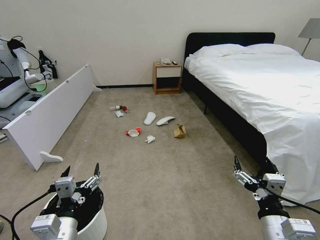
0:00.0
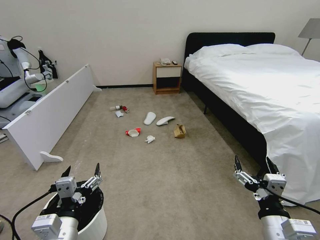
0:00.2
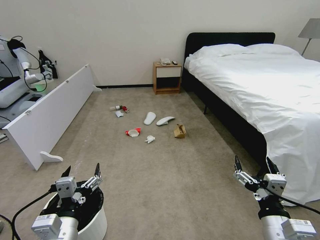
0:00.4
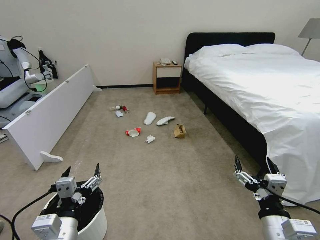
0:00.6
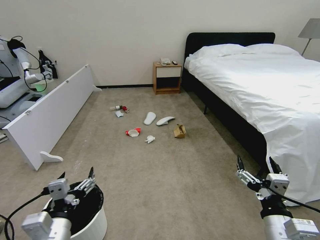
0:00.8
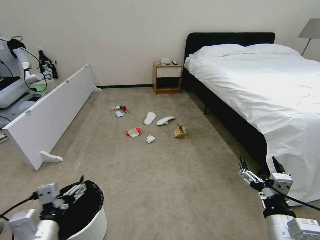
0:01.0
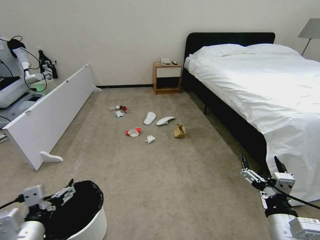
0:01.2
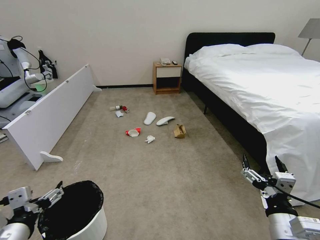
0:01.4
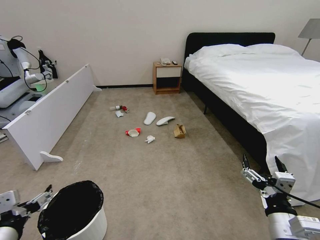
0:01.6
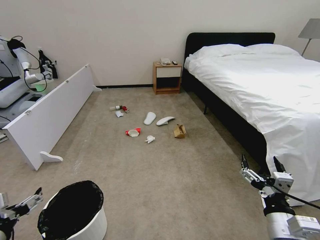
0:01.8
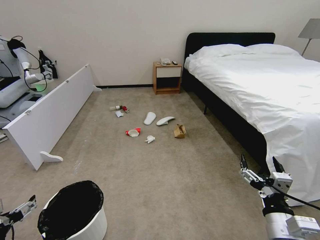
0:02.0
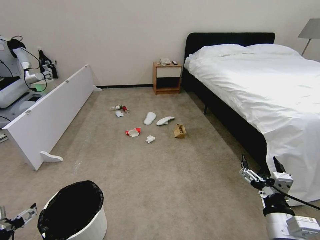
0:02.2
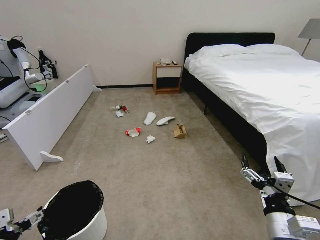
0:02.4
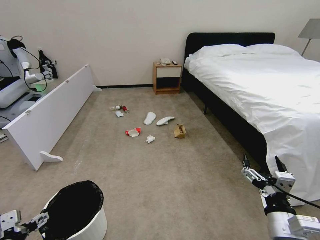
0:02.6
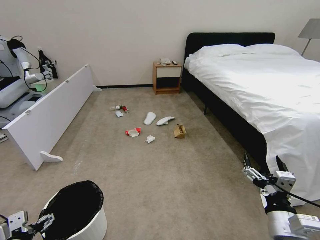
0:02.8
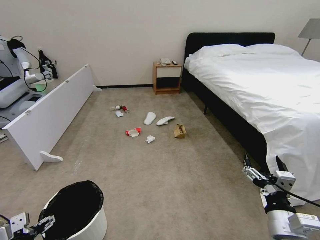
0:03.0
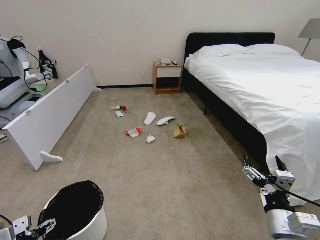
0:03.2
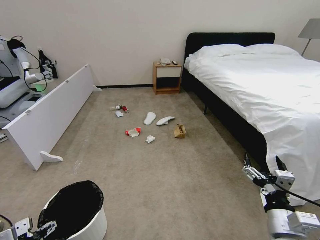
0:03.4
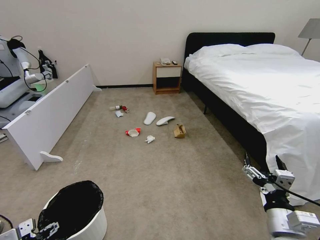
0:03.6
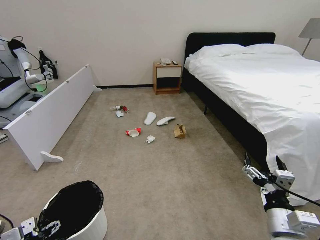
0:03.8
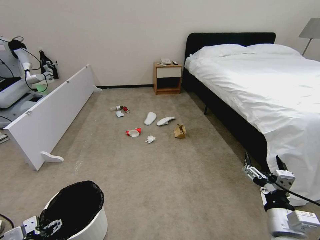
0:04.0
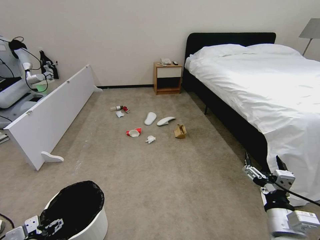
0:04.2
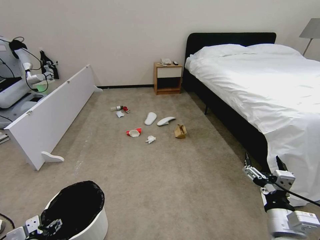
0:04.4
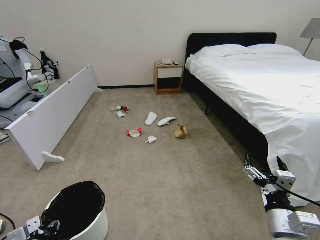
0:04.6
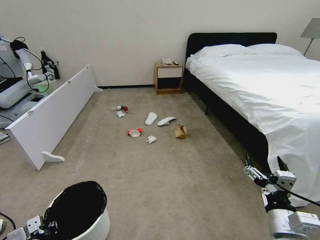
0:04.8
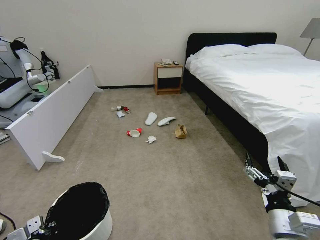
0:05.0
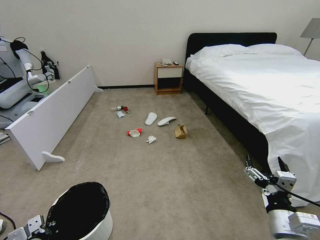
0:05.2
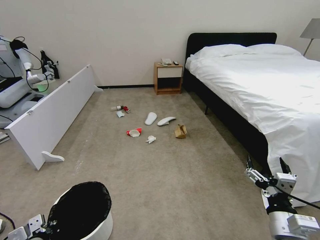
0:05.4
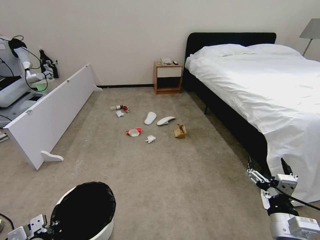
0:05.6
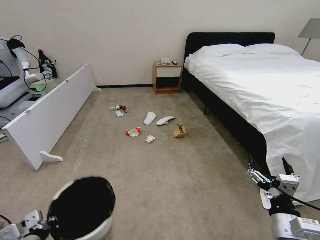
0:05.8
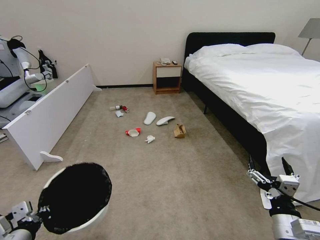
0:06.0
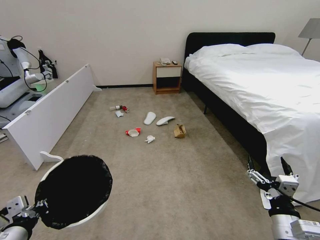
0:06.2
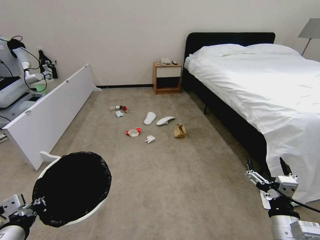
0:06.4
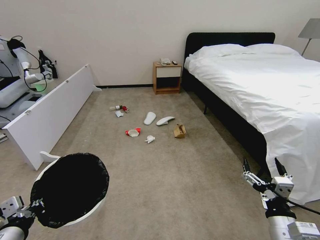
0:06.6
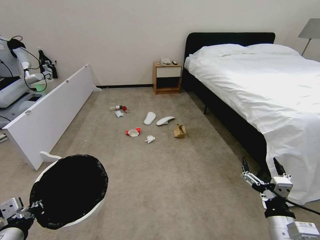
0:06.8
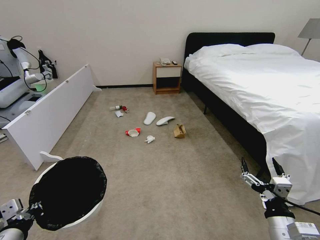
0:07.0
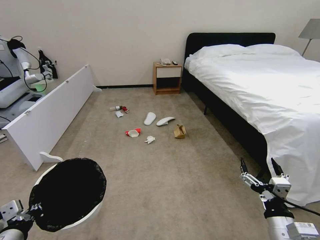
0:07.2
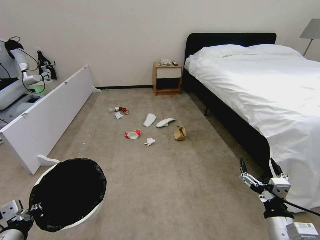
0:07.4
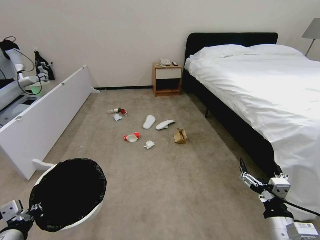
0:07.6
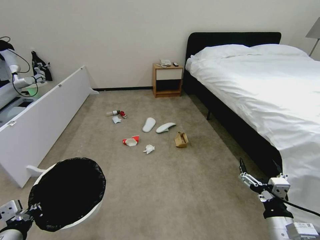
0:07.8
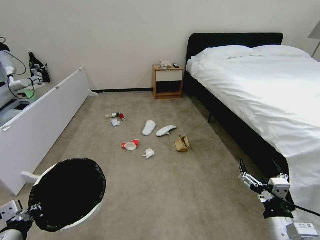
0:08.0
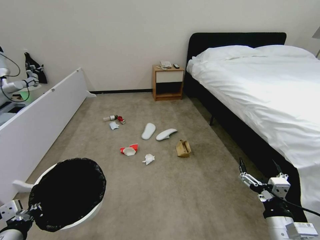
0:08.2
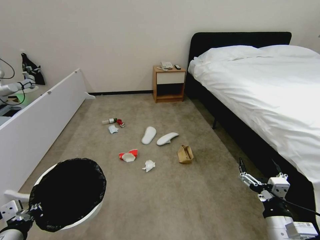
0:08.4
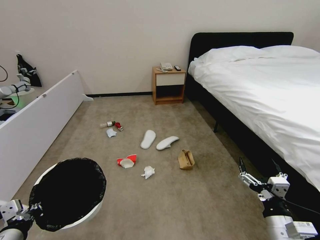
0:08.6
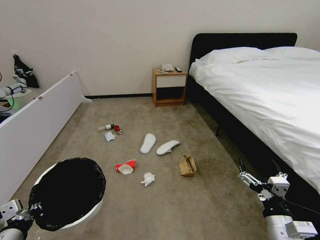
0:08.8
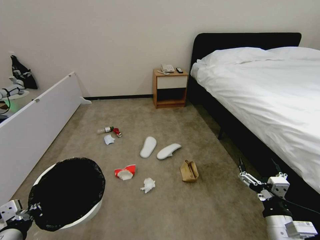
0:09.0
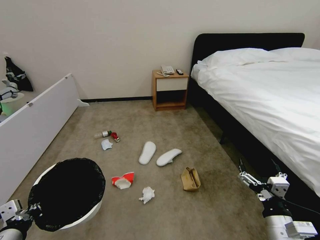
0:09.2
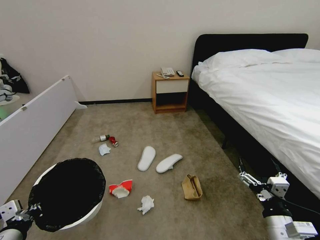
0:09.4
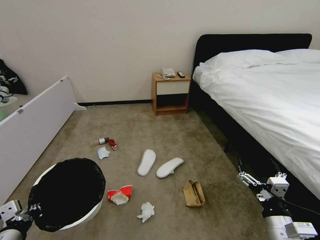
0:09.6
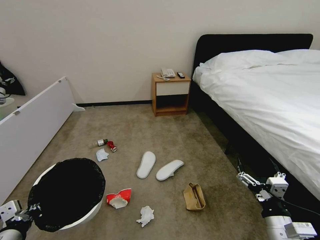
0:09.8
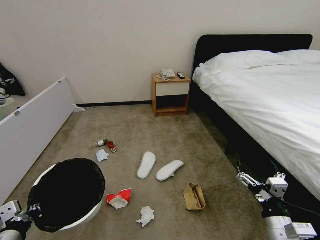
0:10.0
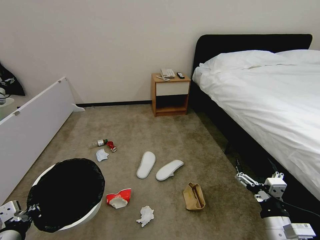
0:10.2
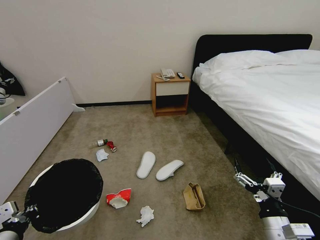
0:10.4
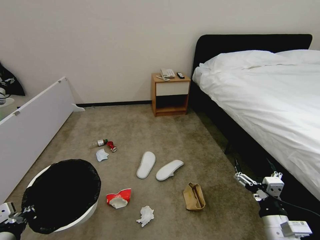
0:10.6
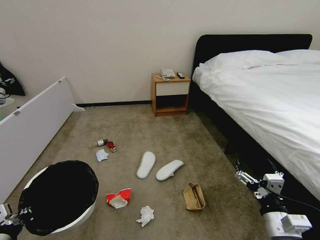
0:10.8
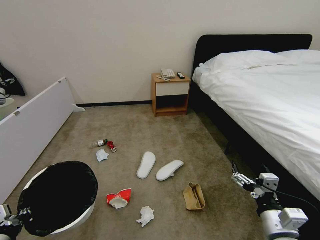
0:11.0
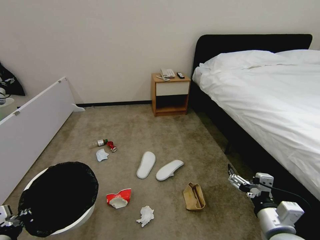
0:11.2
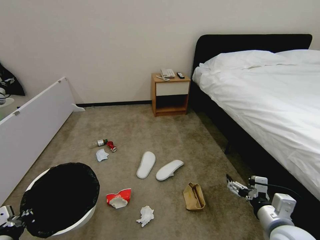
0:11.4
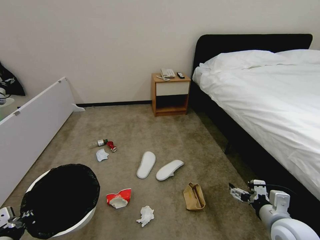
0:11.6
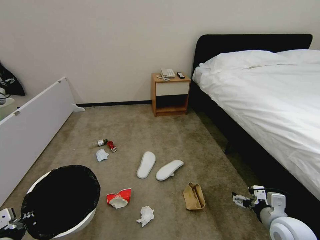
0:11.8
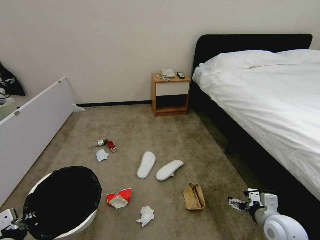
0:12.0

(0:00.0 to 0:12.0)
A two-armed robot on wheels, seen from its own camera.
Task of the whole recording: Pick up the trash bin and place the garbage on the floor into it.
0:01.6 - 0:03.0: The left gripper goes about 10 cm downward.
0:03.0 - 0:04.4: The left gripper shifts about 5 cm downward.
0:04.4 - 0:06.0: The left gripper is displaced upward by some 10 cm, and closes its fingers.
0:06.0 - 0:07.6: There are only small adjustments of the grippers.
0:10.4 - 0:12.0: The right gripper goes approximately 10 cm forward.

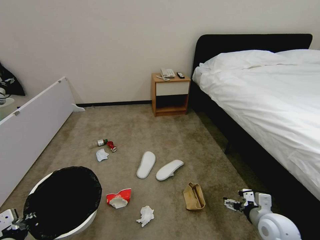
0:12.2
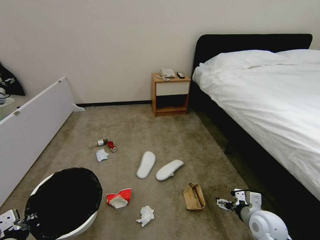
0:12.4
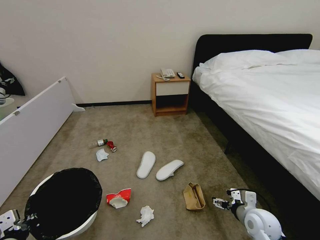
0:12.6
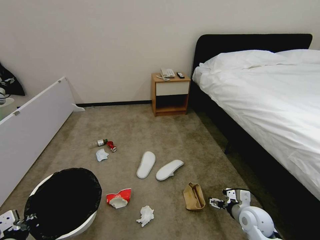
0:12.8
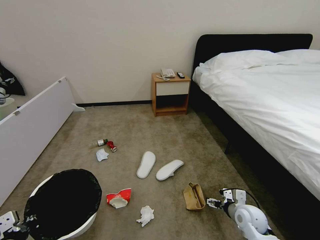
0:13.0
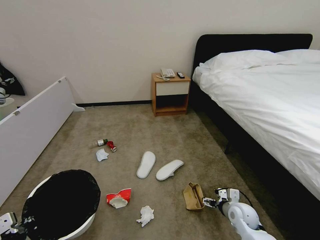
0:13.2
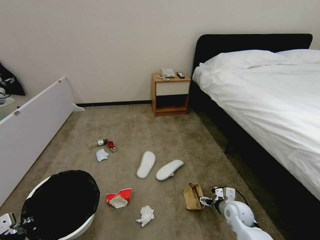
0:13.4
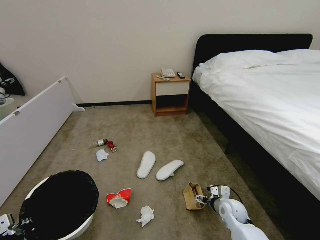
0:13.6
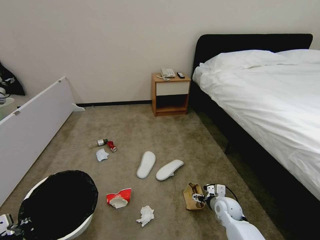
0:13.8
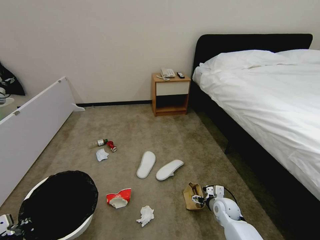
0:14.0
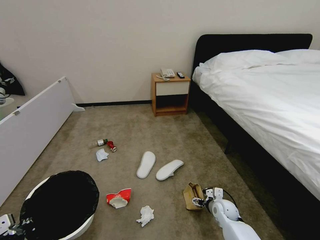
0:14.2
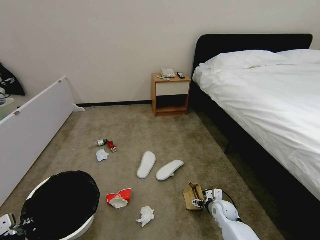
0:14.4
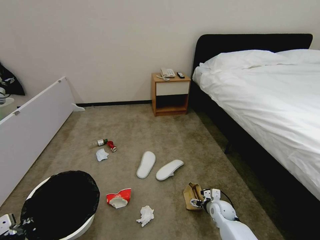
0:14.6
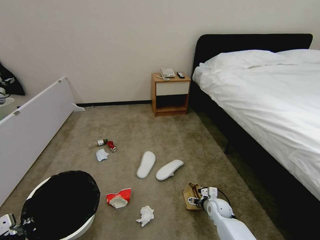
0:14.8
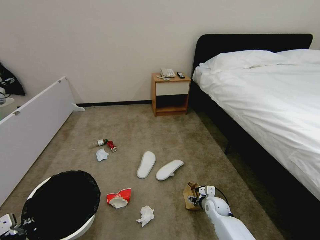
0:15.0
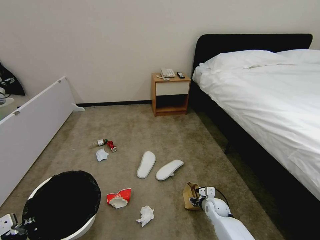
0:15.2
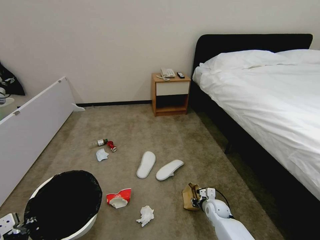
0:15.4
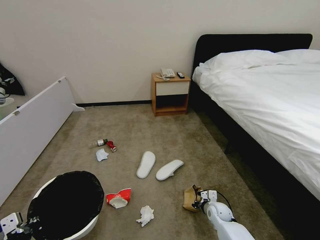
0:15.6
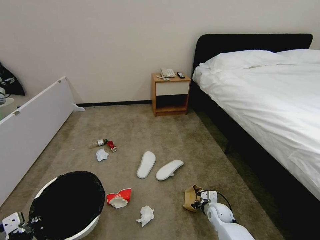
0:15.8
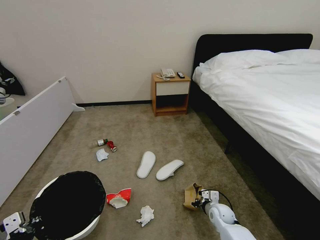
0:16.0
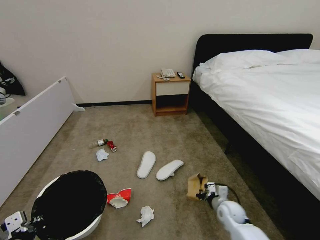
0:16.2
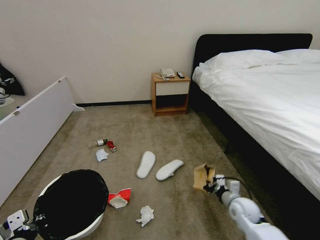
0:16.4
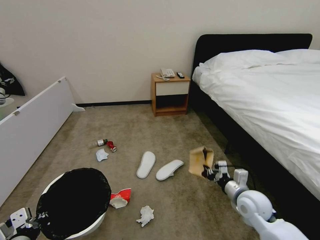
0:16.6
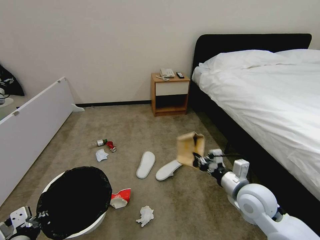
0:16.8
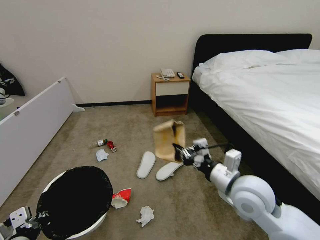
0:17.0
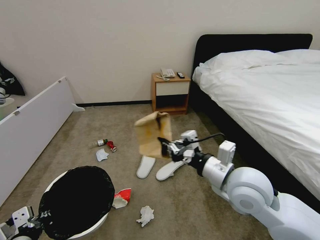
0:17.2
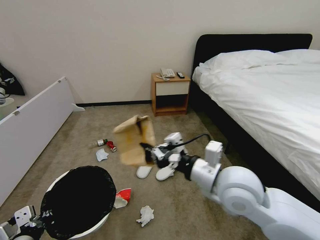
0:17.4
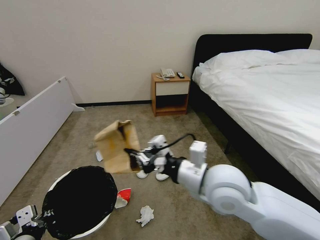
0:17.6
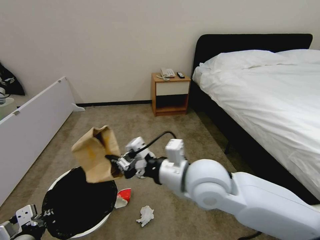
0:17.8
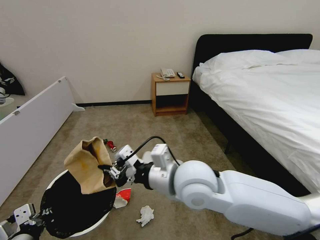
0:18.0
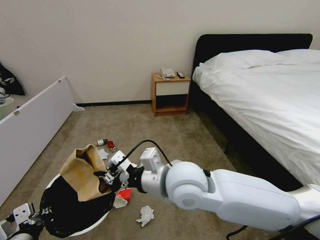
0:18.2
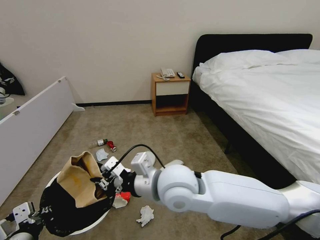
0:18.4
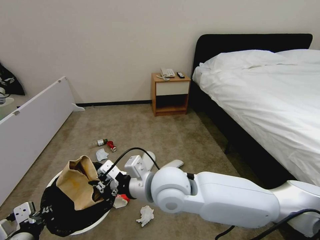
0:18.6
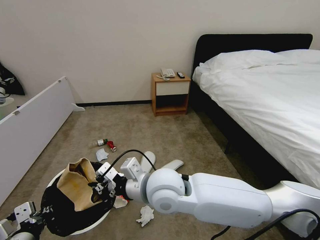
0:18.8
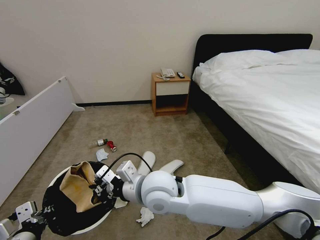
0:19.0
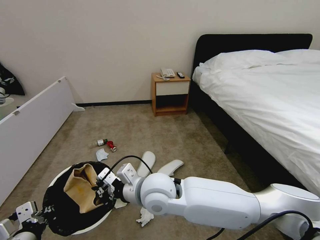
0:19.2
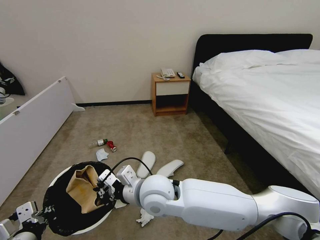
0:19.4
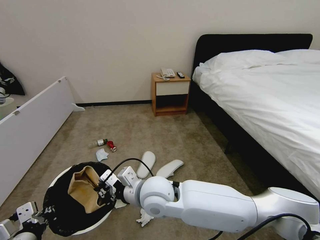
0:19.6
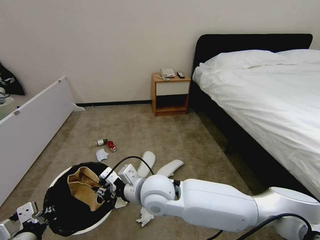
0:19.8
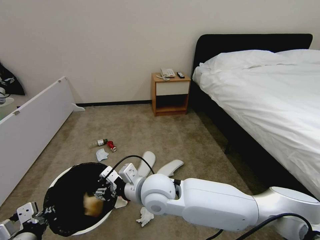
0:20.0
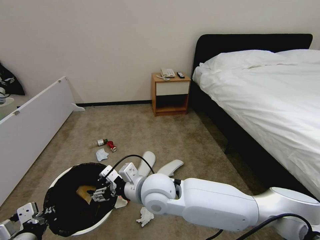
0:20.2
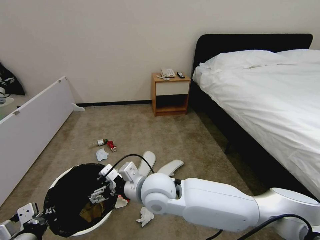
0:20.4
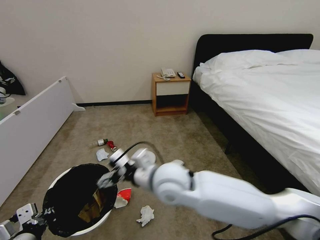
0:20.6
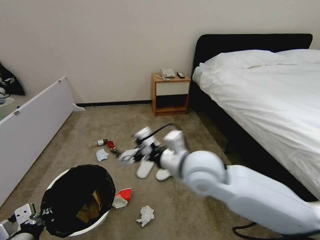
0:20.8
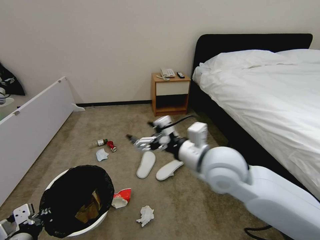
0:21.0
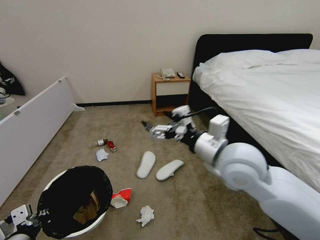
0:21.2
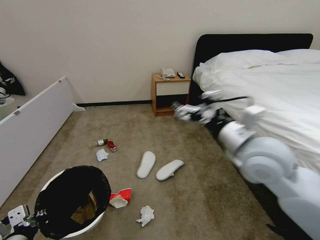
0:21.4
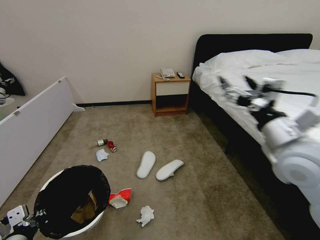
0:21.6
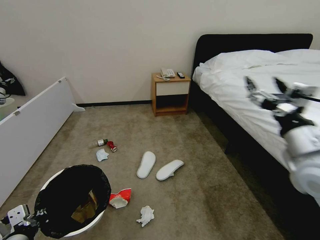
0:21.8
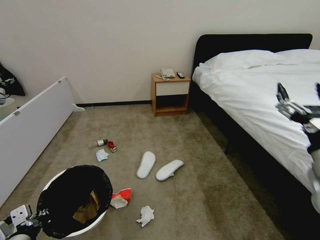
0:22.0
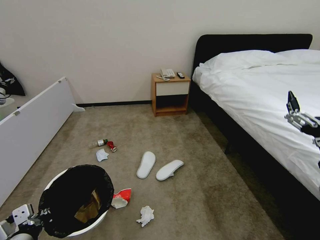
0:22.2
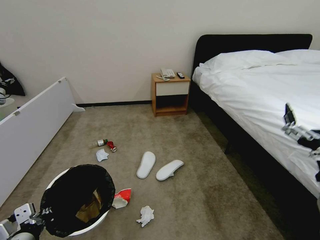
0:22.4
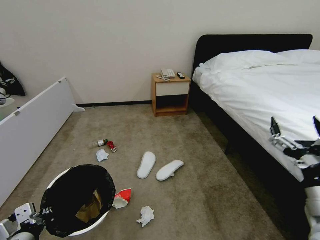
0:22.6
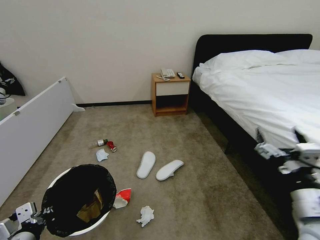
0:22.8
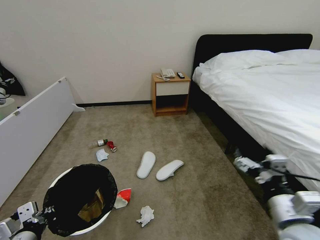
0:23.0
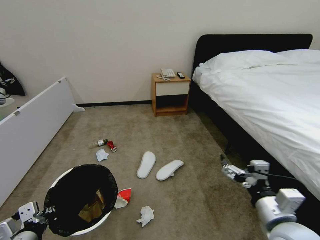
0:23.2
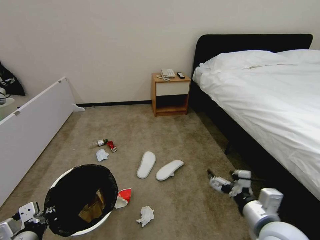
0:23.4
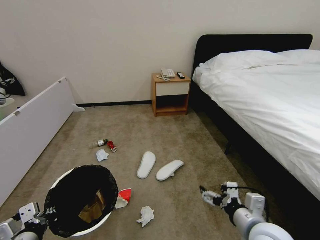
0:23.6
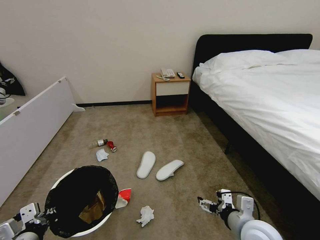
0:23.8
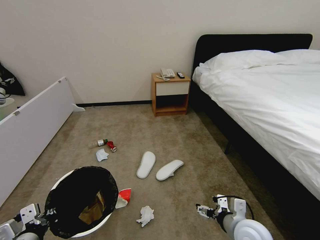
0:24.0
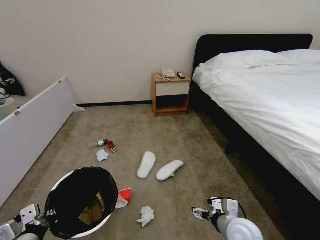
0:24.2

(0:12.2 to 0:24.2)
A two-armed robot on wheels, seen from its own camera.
Task of the whole recording: Pick up the trash bin and place the garbage on the floor into it.
0:12.2 - 0:13.8: The right gripper moves downward, forward and to the left, roughly 15 cm.
0:13.8 - 0:15.2: The right gripper shifts some 5 cm downward, and closes up.
0:15.2 - 0:16.6: The right gripper goes roughly 20 cm upward, and closes its fingers.
0:16.6 - 0:18.2: The right gripper goes approximately 30 cm to the left and upward.
0:18.2 - 0:19.8: The right gripper travels downward and to the left by roughly 10 cm.
0:19.8 - 0:21.2: The right gripper shifts roughly 25 cm to the right and upward, and opens up.
0:21.2 - 0:22.6: The right gripper heads to the right, backward and downward, covering about 20 cm.
0:22.6 - 0:24.2: The right gripper is displaced downward and to the left by about 20 cm.
